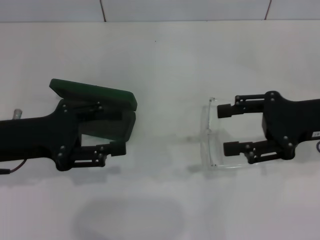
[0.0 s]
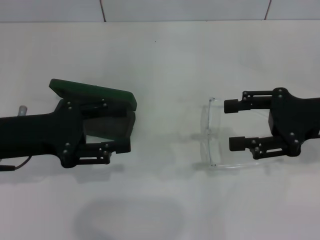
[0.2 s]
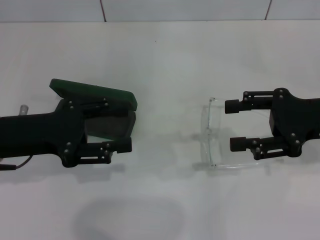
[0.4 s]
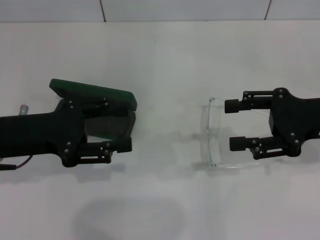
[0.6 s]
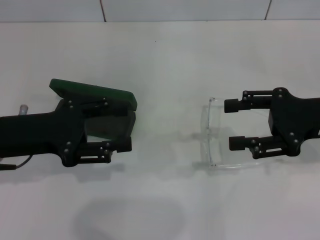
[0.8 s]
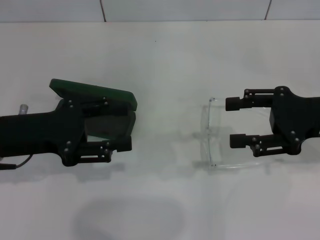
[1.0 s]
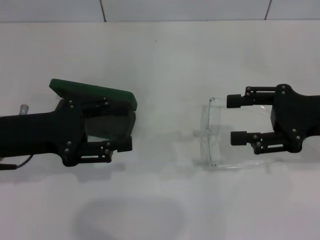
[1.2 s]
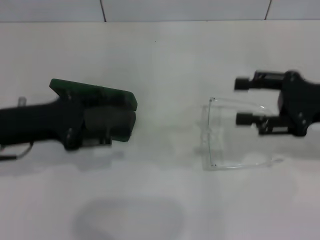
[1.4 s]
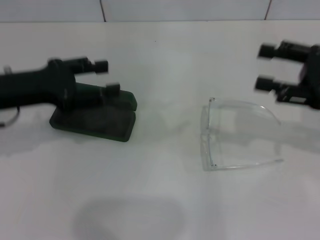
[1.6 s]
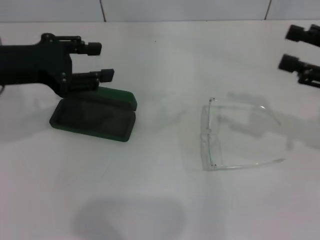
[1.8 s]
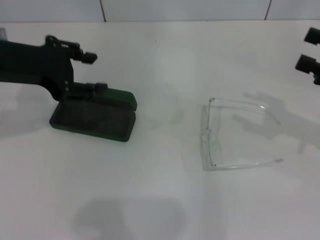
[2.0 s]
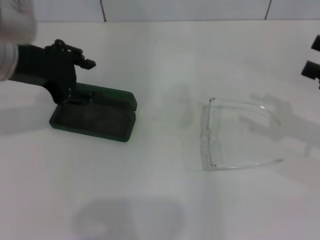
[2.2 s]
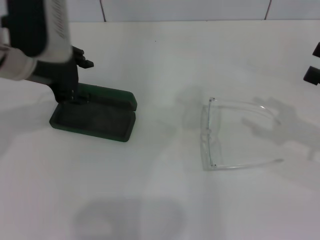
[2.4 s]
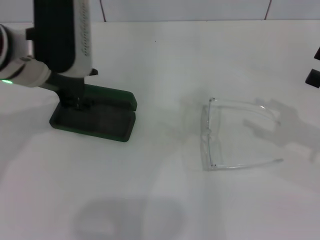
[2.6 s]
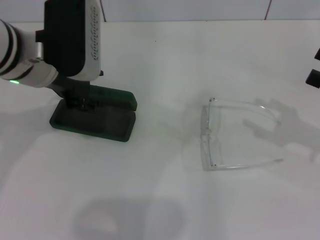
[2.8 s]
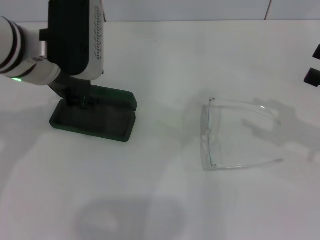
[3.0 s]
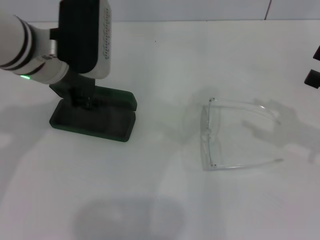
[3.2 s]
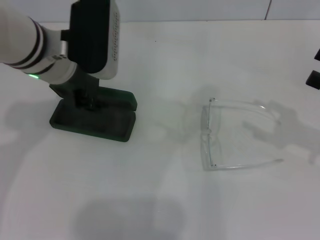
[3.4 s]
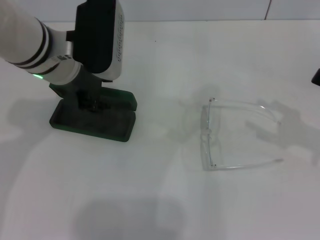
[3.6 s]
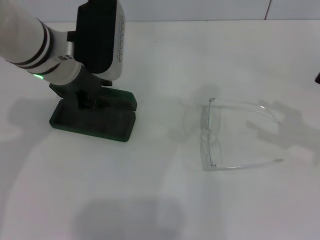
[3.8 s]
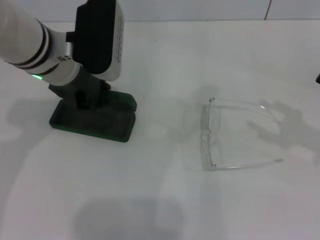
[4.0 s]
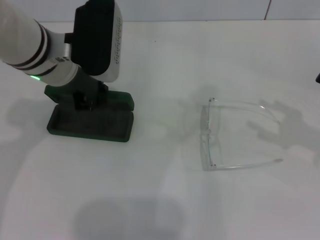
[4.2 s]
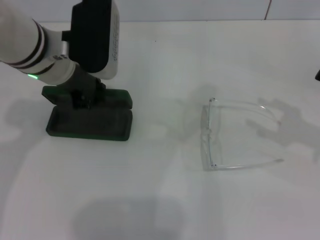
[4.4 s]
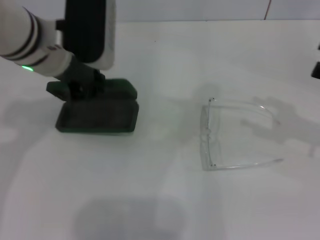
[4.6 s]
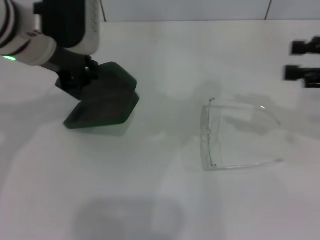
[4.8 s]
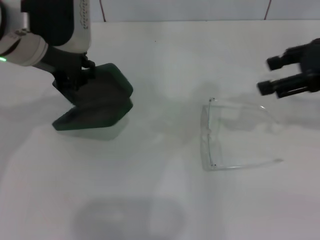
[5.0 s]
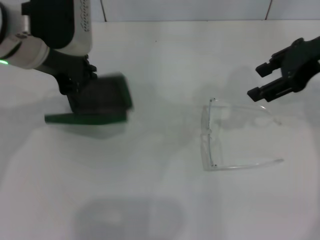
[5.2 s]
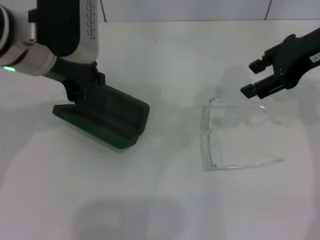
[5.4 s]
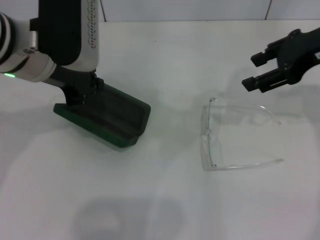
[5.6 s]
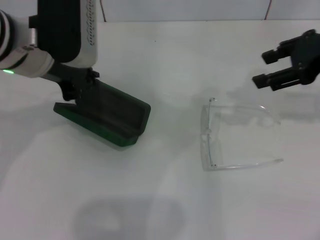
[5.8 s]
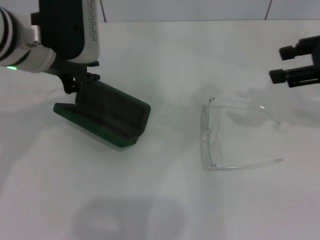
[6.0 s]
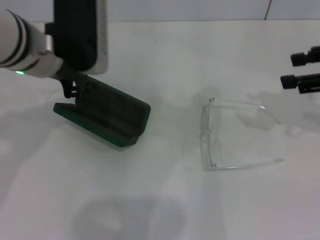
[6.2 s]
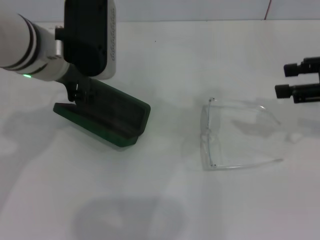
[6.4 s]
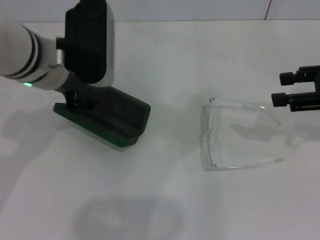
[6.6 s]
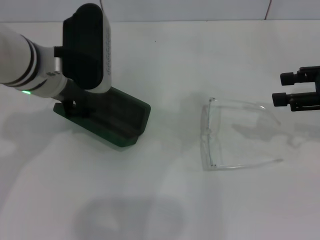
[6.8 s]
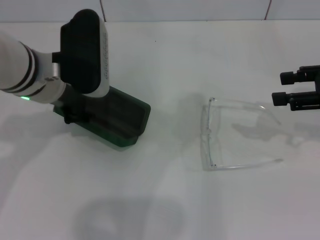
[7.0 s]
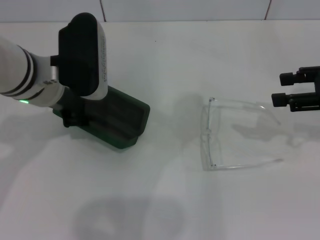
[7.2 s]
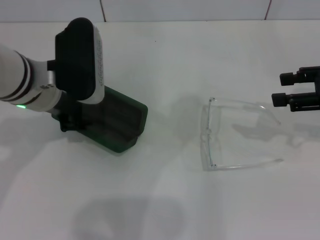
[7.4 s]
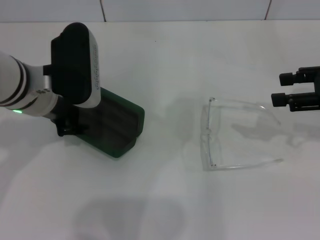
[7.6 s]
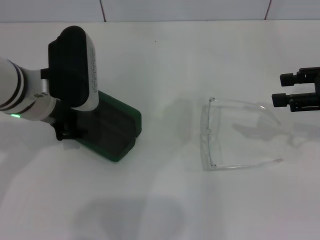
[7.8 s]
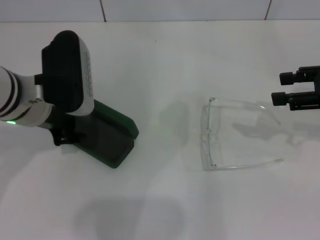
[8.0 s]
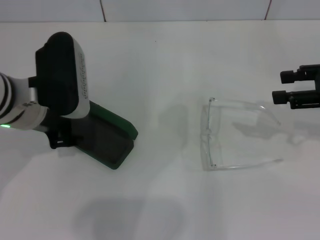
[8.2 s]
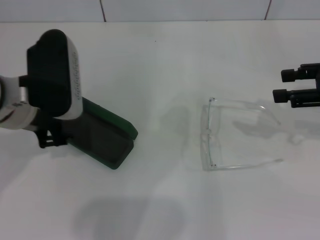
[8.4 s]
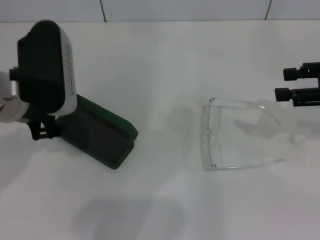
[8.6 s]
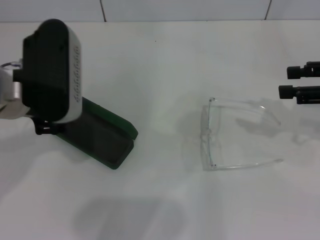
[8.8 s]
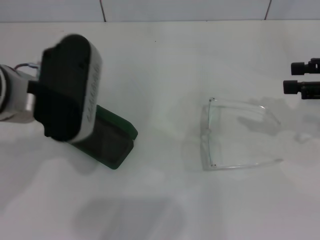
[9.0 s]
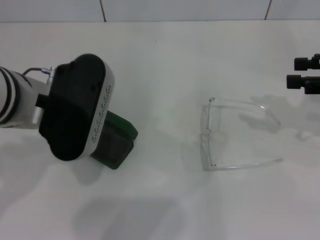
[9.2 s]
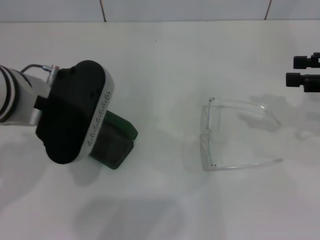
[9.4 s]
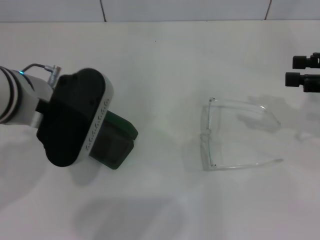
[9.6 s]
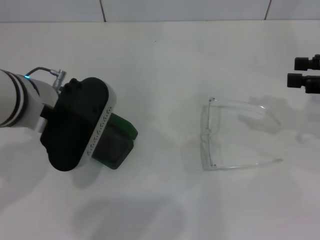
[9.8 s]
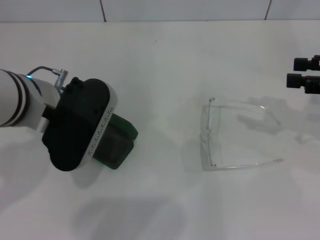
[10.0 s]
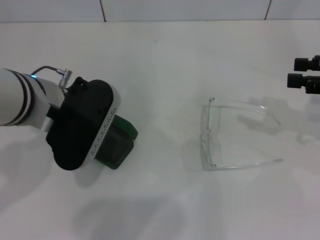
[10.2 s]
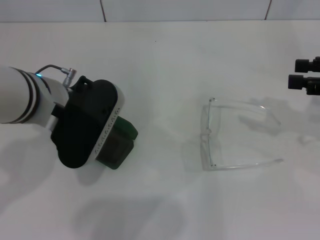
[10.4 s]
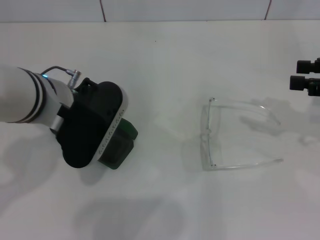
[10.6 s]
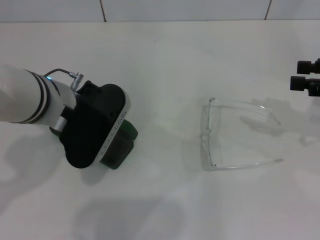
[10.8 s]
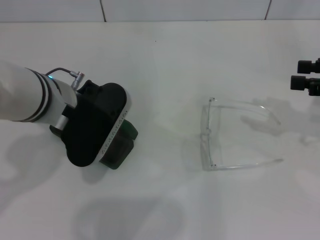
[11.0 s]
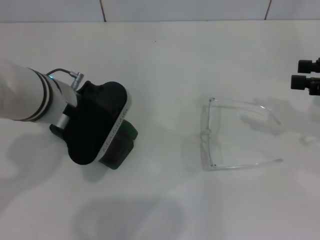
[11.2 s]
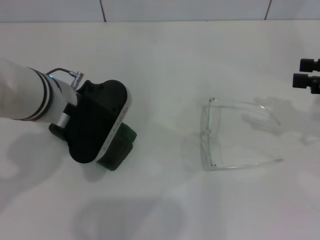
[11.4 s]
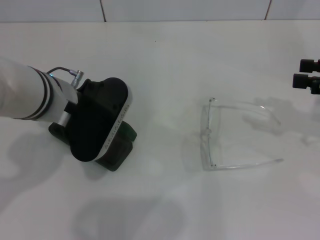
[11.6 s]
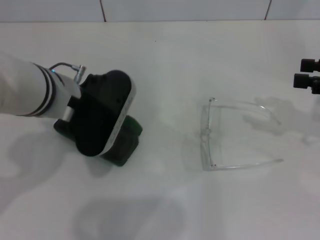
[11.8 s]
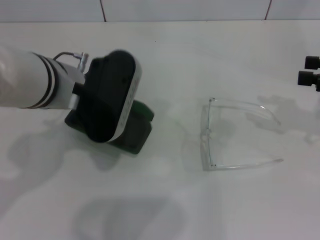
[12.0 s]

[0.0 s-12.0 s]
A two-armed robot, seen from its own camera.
Step, 0.0 to 4.0 s: Grab the glasses case with your left hand.
Step, 4.4 to 8.0 s: Place the glasses case in the center of the table with your left hand.
Step, 8.4 to 11.4 s: Grab the glasses case with your left hand.
0.0 to 1.6 s: The left gripper shifts by some 5 cm.
1.6 to 3.0 s: The right gripper is displaced to the right by some 5 cm, while the left gripper moves to the right, roughly 10 cm.
3.0 to 4.4 s: The left gripper closes its fingers.
4.4 to 6.0 s: The right gripper moves upward, to the left and forward, some 15 cm.
6.0 to 7.6 s: Both grippers travel together downward, about 5 cm. The left gripper opens its fingers.
7.6 to 9.0 s: The left gripper ends up about 5 cm from where it was.
10.4 to 12.0 s: The left gripper closes up.

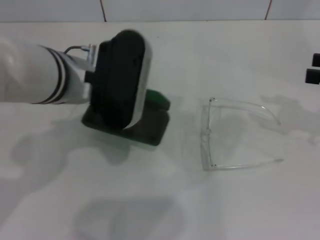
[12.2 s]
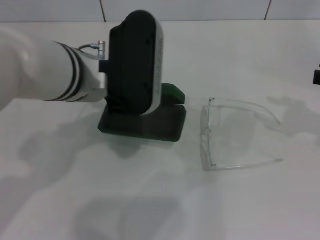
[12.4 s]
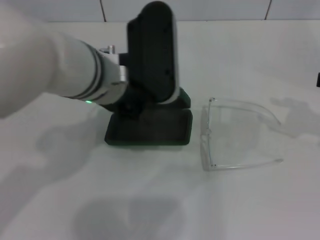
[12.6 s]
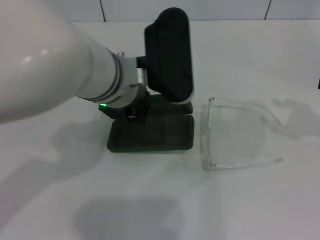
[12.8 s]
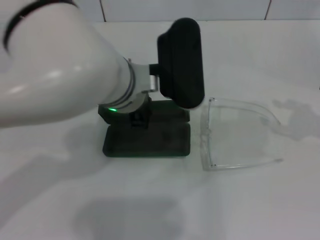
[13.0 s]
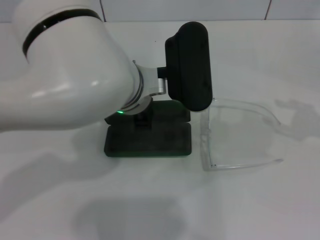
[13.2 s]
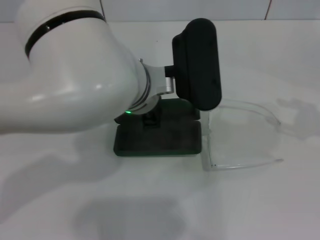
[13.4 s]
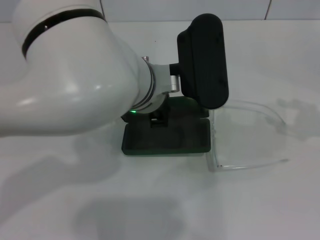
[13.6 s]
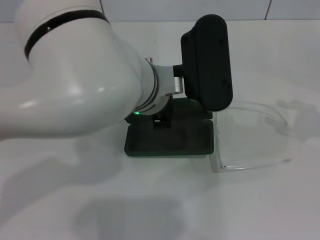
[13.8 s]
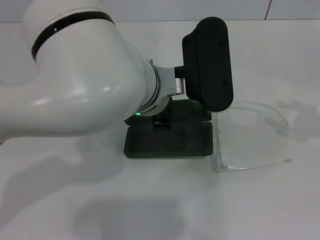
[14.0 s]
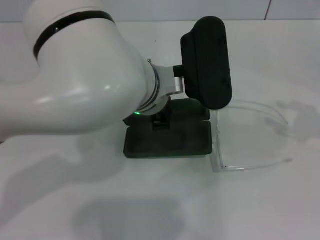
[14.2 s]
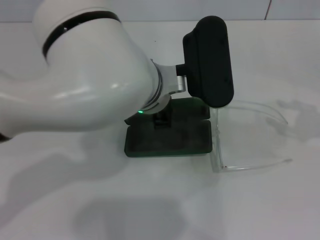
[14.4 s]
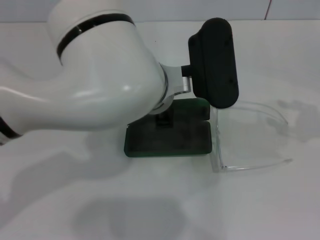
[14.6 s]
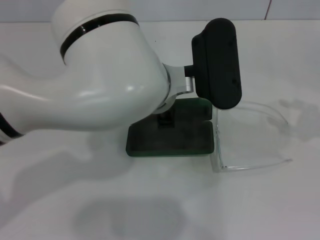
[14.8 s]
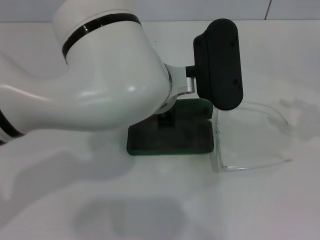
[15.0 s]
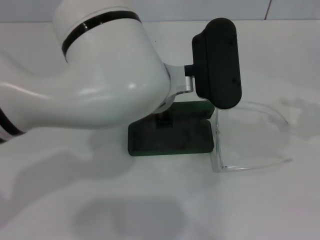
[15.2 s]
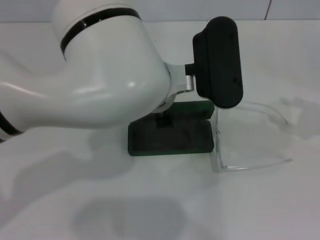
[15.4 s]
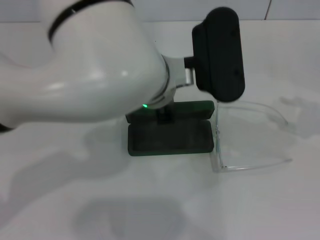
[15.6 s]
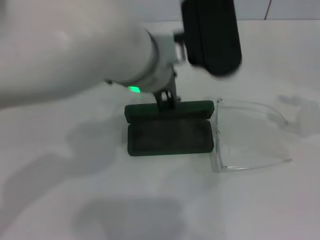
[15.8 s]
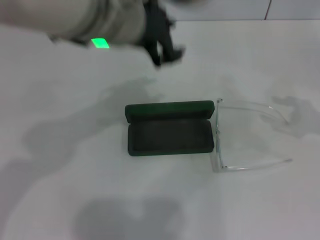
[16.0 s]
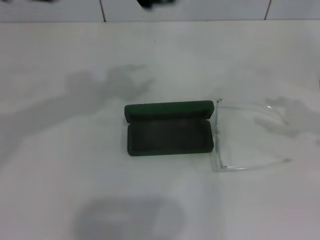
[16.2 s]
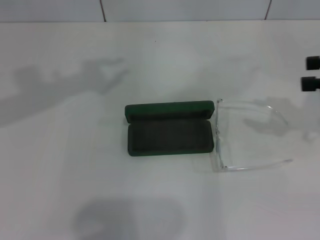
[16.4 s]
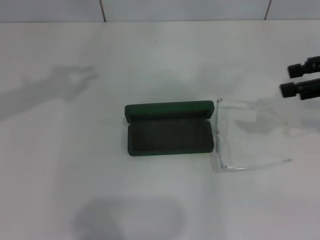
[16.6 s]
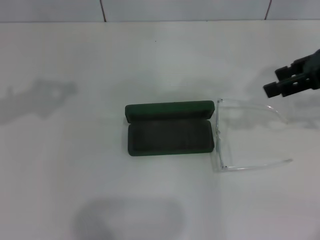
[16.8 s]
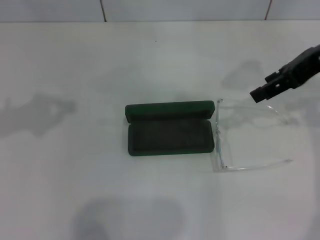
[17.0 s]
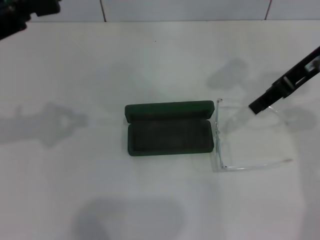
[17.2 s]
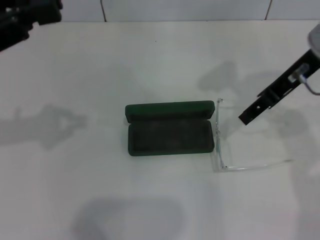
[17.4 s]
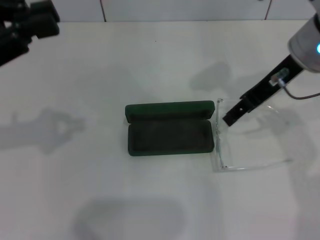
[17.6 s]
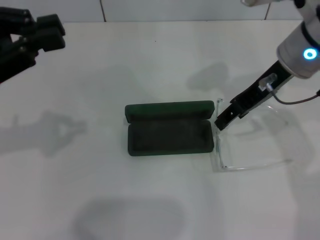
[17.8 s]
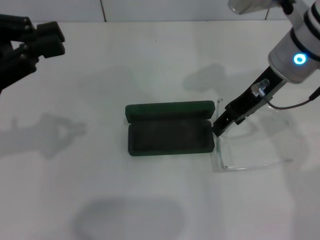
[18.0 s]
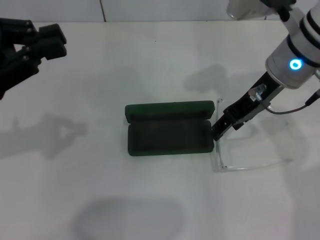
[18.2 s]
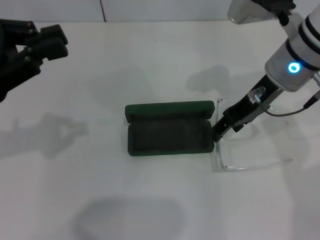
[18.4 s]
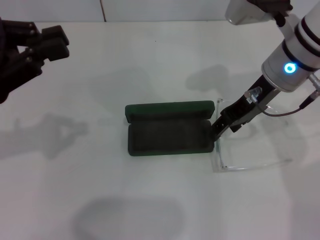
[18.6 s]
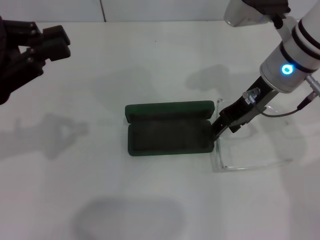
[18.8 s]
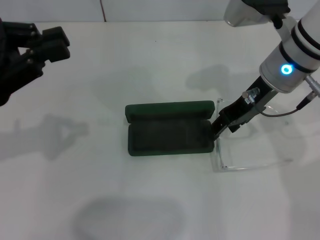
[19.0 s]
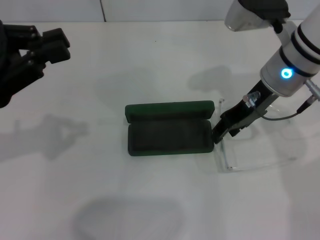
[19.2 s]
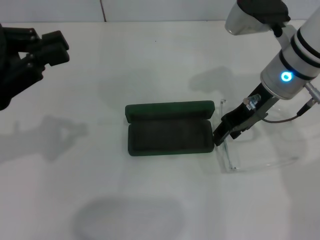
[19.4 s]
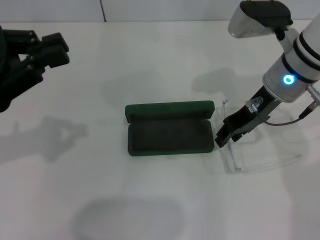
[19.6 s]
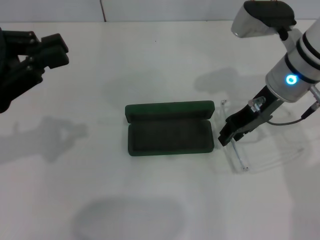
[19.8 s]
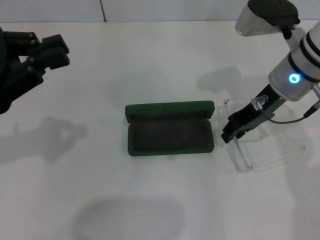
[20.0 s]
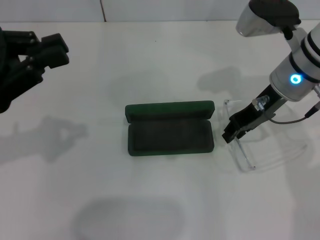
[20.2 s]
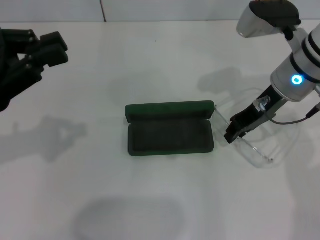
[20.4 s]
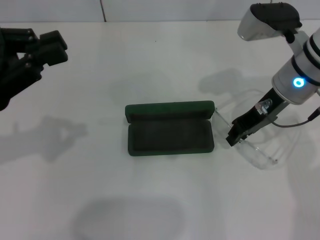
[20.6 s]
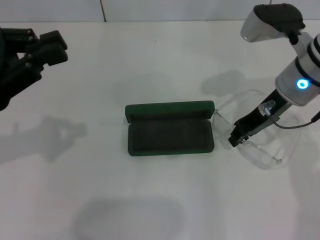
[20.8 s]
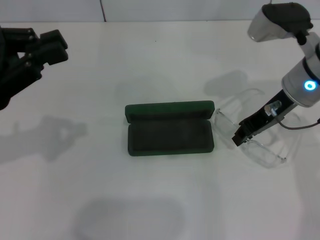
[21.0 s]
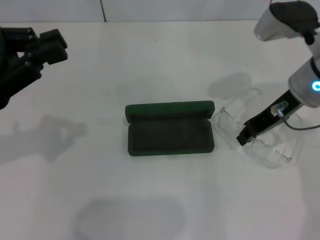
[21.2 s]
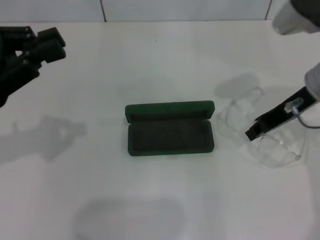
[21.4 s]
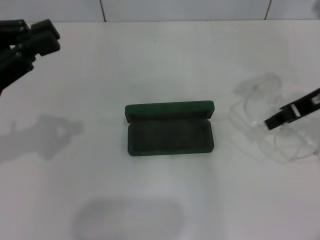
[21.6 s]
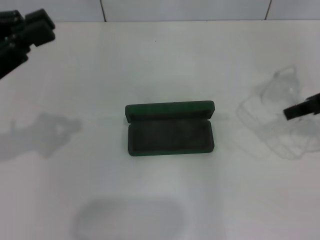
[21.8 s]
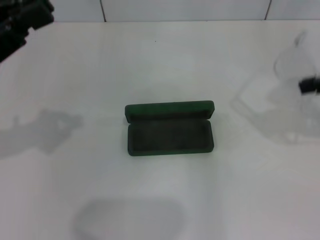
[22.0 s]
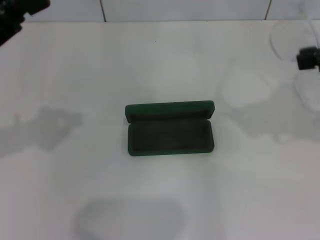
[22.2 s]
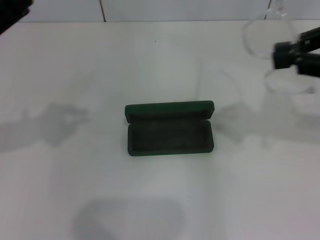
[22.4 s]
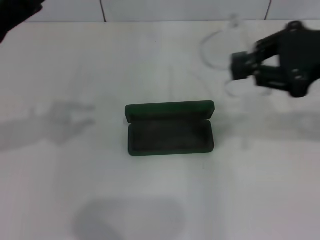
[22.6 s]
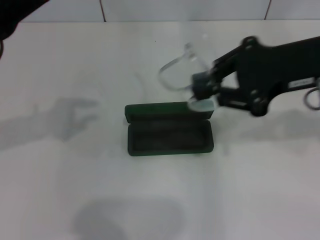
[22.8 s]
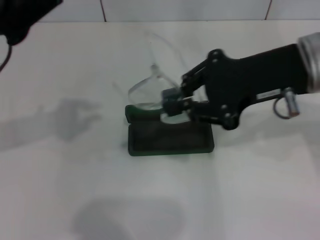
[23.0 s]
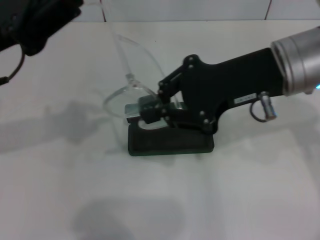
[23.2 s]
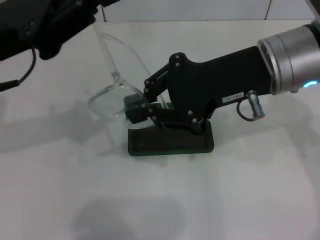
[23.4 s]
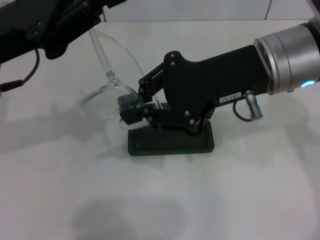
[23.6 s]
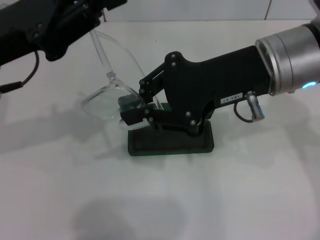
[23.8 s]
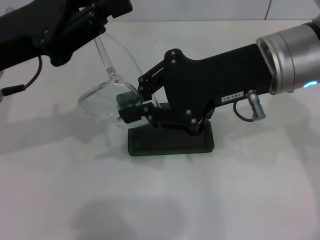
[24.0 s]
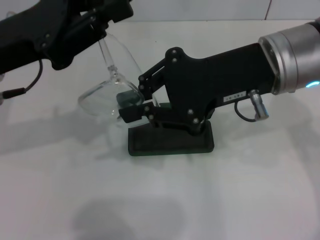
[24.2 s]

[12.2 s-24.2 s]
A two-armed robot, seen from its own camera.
Step, 12.2 to 15.0 s: Place the glasses case in the center of the table with your left hand.
Step, 15.2 to 20.6 s: Grab the eyeglass frame with your right hand.
12.2 to 13.8 s: The left gripper shifts approximately 10 cm to the right.
13.8 to 15.2 s: The grippers stay close to where they were, moving slightly.
15.2 to 16.6 s: The right gripper moves to the left, roughly 10 cm. Meanwhile the left gripper travels to the left and upward by about 30 cm.
16.6 to 18.2 s: The left gripper is displaced downward by about 10 cm; the right gripper moves to the left, some 15 cm.
18.2 to 19.8 s: The right gripper closes its fingers.
19.8 to 21.2 s: The grippers make only small movements.
21.2 to 22.6 s: The right gripper heads upward, backward and to the right, covering roughly 15 cm.
22.6 to 24.2 s: The right gripper moves to the left, about 10 cm.
